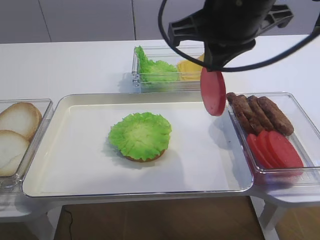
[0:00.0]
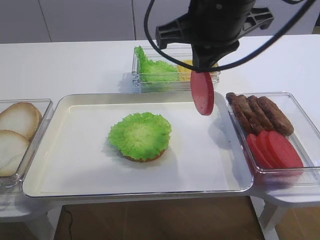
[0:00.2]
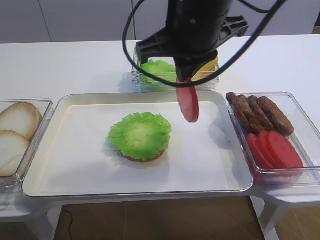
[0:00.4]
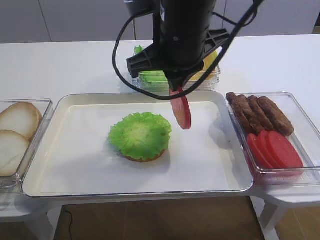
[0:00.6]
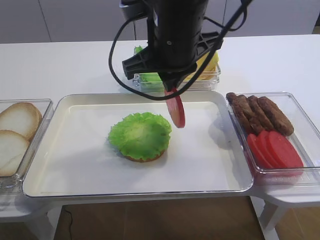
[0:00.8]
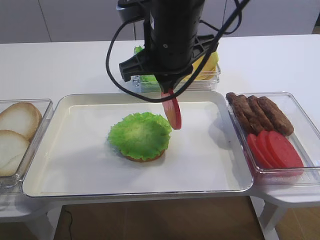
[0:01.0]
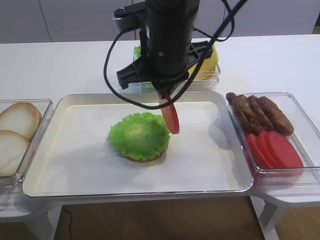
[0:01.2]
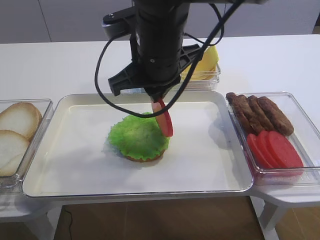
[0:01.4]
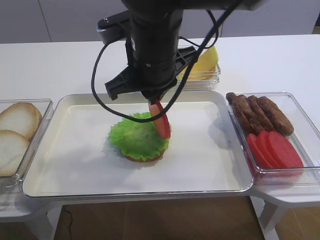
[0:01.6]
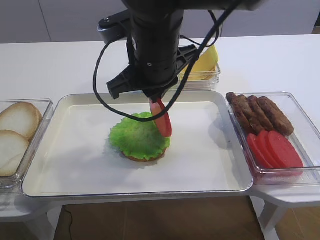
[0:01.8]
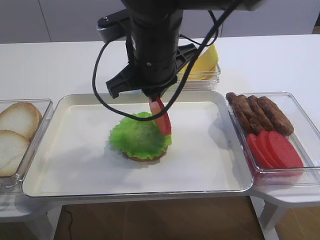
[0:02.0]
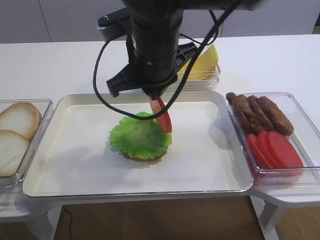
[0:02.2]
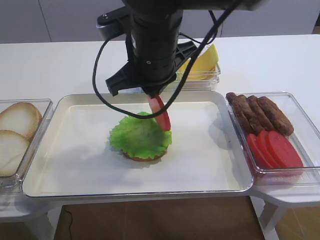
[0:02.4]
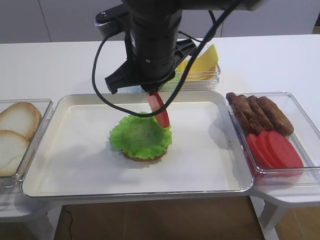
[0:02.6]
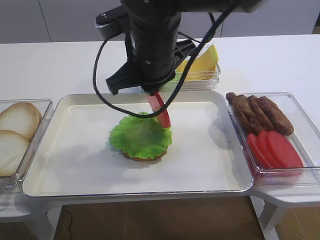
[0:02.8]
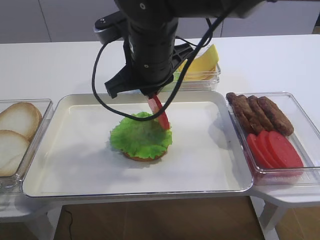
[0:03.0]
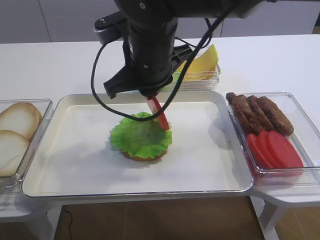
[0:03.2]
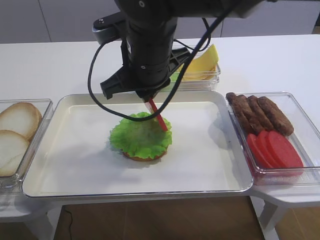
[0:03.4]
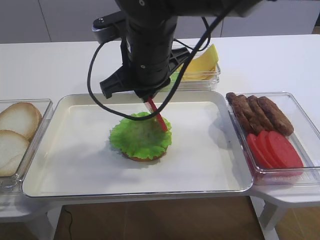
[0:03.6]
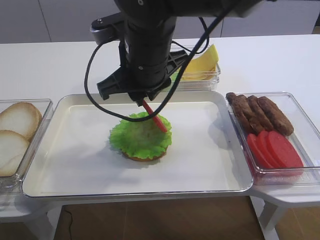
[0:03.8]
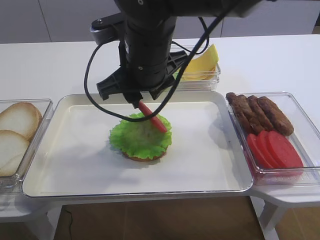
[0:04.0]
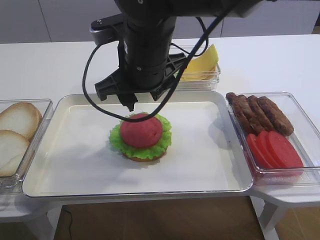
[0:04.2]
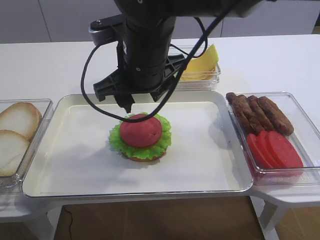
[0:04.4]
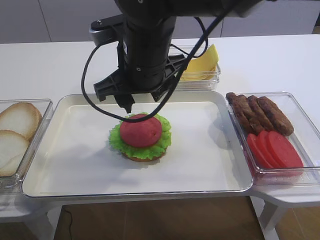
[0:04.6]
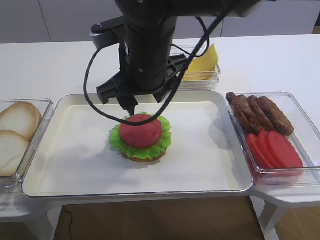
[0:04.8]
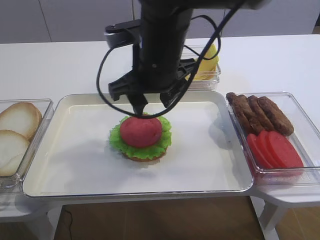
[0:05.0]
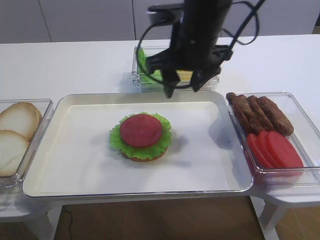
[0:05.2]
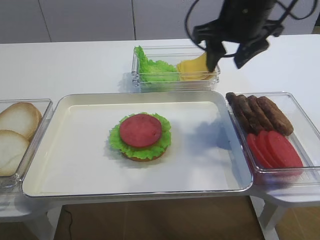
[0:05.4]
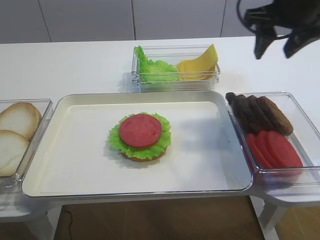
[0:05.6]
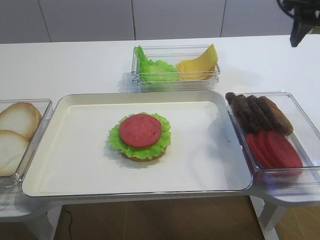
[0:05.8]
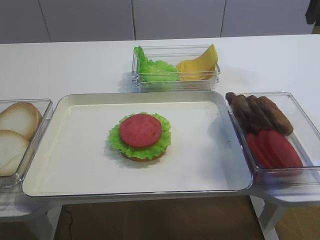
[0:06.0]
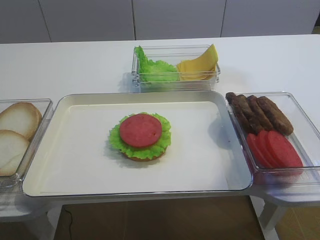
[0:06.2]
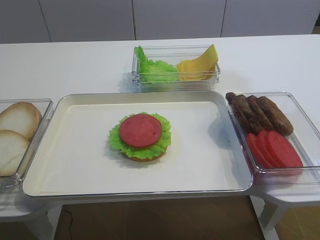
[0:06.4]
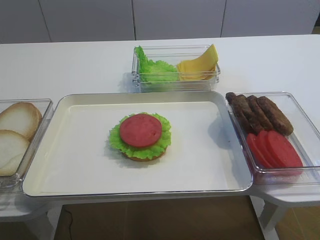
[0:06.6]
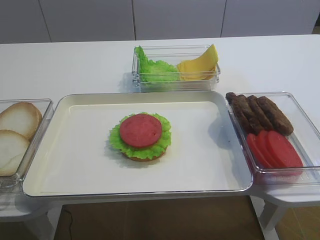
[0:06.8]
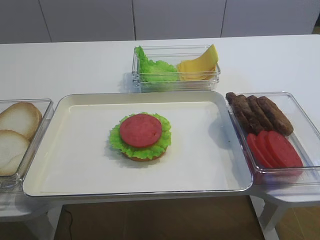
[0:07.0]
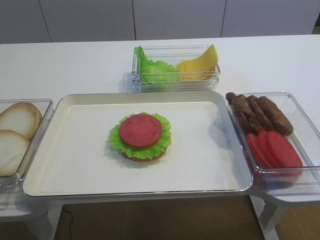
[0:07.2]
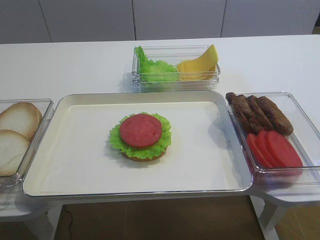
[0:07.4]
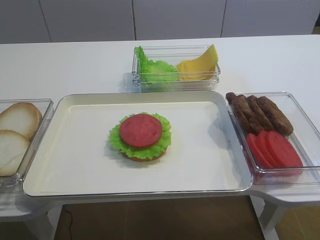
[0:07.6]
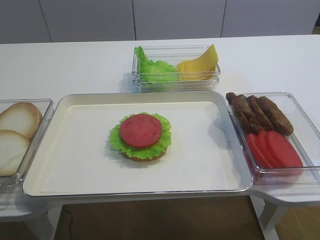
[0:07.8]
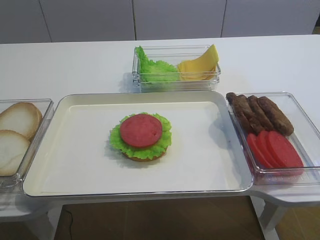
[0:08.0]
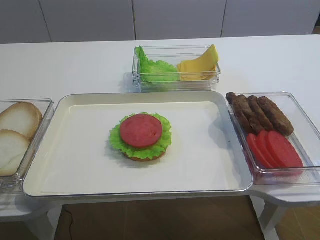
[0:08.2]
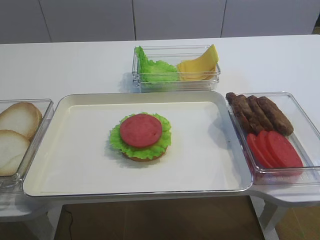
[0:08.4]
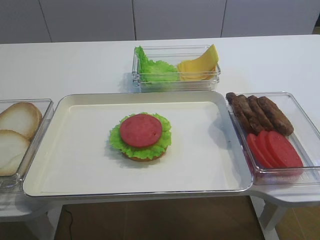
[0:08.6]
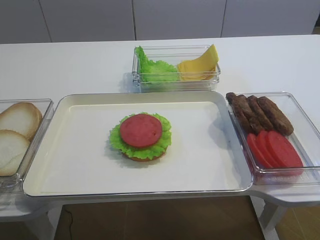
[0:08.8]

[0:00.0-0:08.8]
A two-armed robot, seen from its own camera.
Step, 0:00.0 to 0:04.4: Place the tomato slice on the lettuce leaf with the right gripper.
0:00.0 to 0:01.4: The right gripper moves to the left and downward, approximately 10 cm.
0:01.4 to 0:03.0: The grippers stay close to where they were, moving slightly.
0:03.0 to 0:04.4: The right gripper opens.
0:04.4 to 0:05.8: The right gripper is displaced to the right by roughly 25 cm.
0:05.8 to 0:07.4: The right gripper heads backward, covering approximately 35 cm.

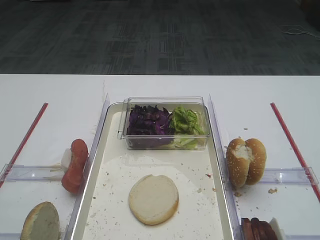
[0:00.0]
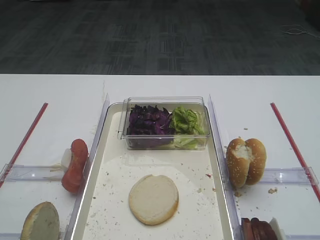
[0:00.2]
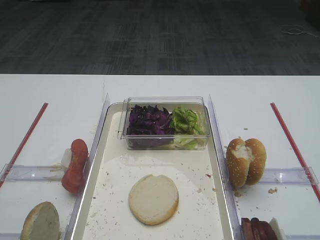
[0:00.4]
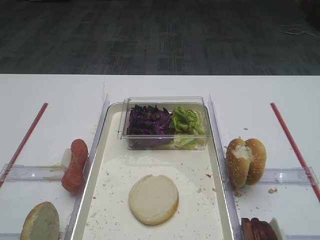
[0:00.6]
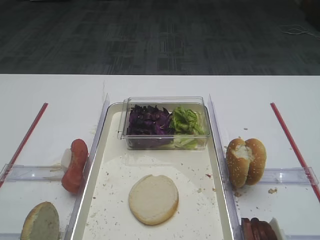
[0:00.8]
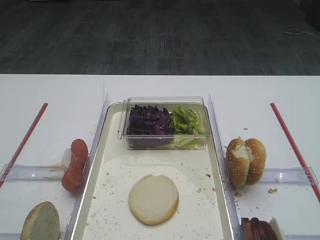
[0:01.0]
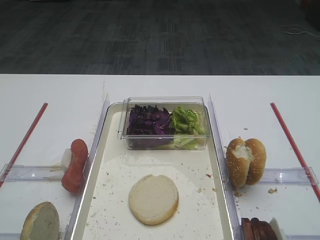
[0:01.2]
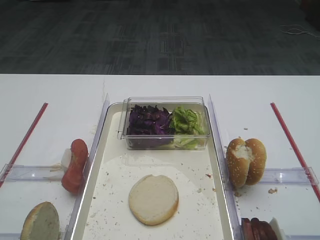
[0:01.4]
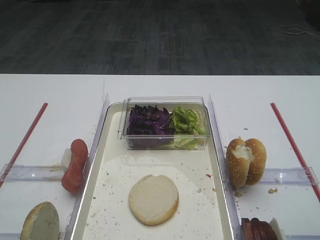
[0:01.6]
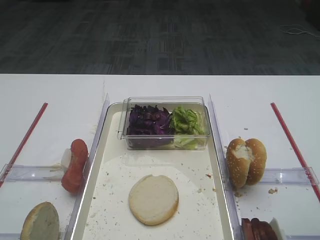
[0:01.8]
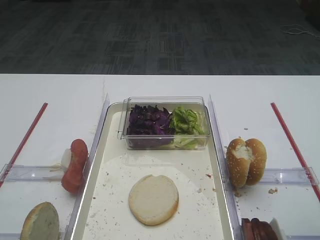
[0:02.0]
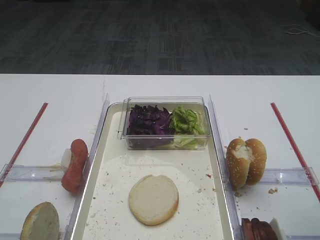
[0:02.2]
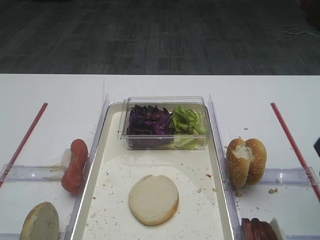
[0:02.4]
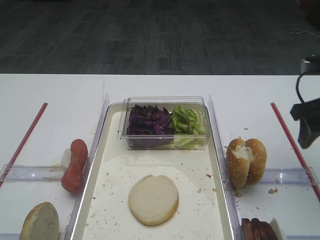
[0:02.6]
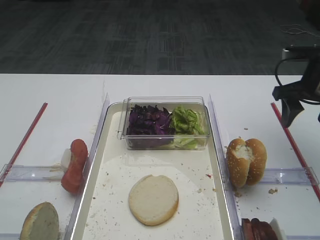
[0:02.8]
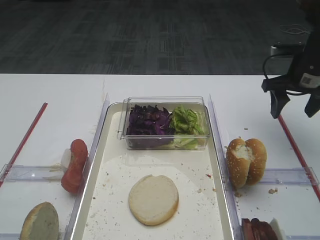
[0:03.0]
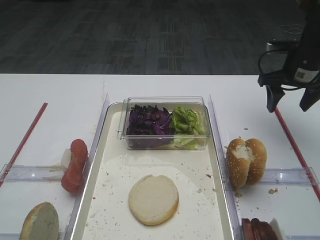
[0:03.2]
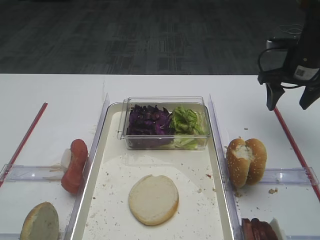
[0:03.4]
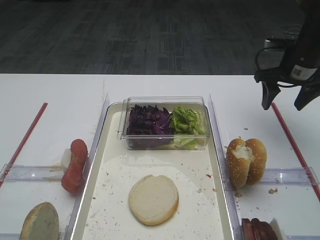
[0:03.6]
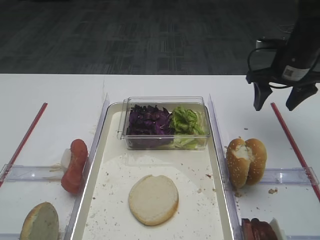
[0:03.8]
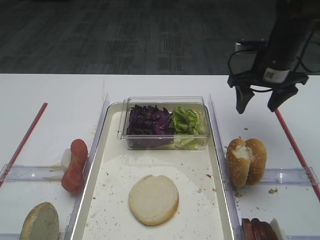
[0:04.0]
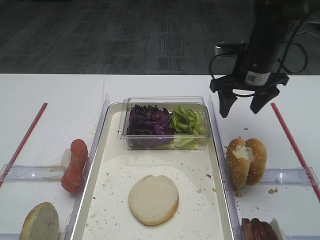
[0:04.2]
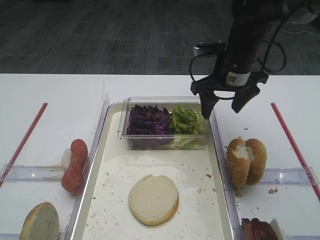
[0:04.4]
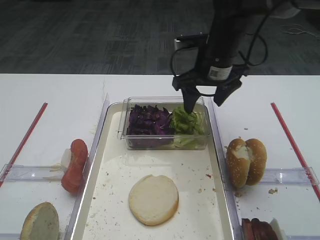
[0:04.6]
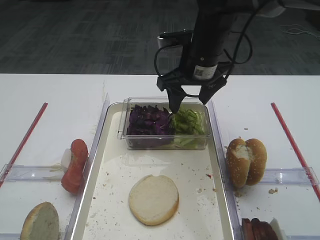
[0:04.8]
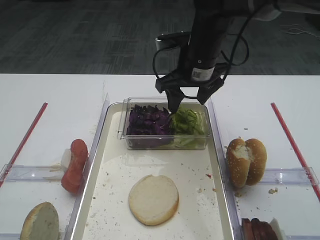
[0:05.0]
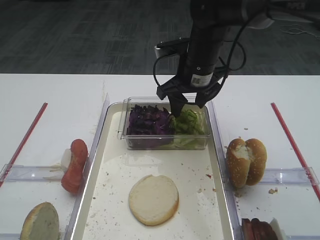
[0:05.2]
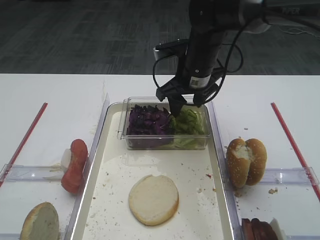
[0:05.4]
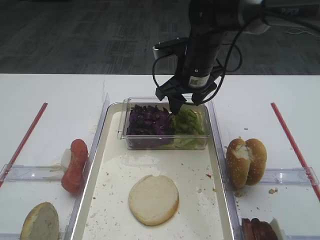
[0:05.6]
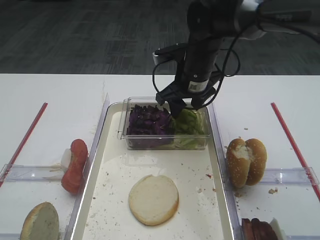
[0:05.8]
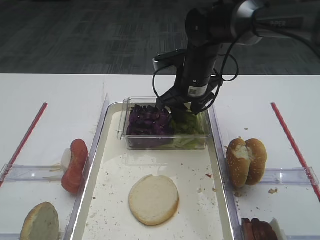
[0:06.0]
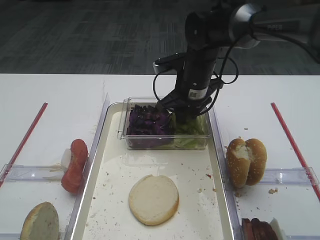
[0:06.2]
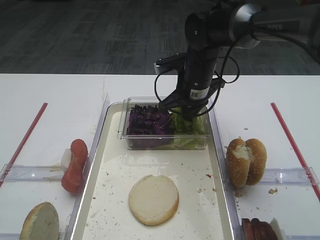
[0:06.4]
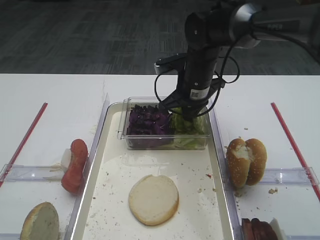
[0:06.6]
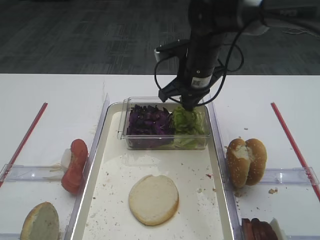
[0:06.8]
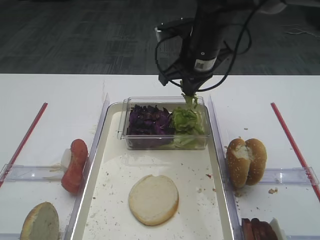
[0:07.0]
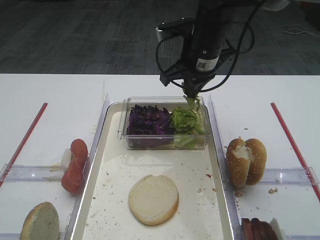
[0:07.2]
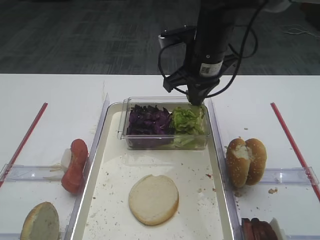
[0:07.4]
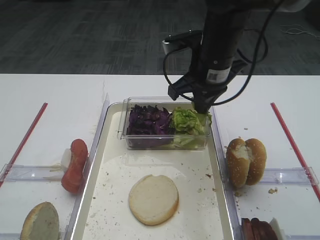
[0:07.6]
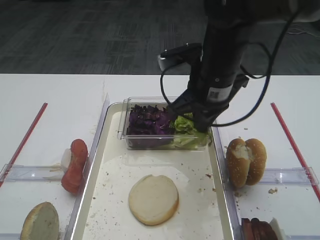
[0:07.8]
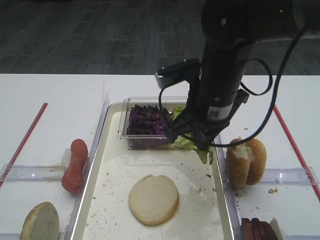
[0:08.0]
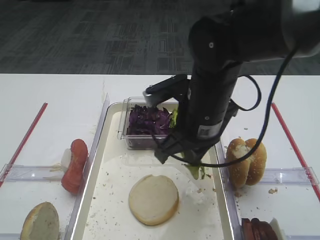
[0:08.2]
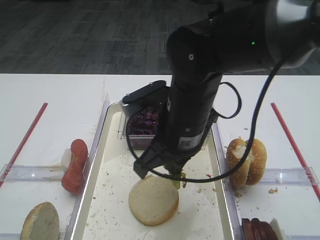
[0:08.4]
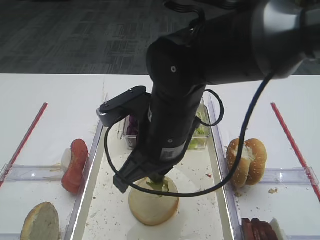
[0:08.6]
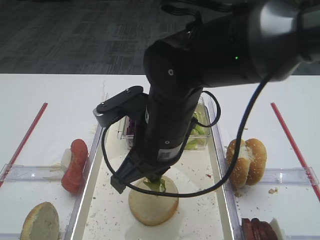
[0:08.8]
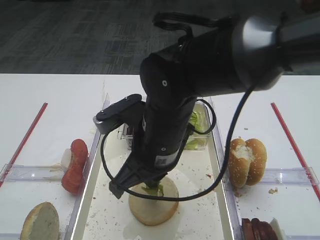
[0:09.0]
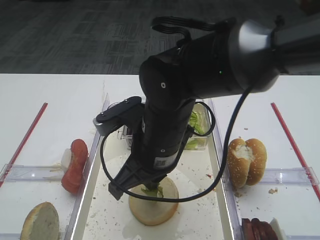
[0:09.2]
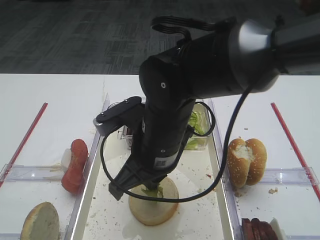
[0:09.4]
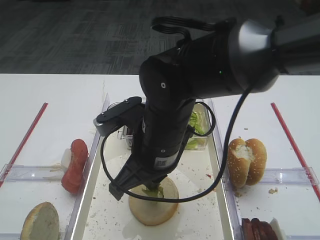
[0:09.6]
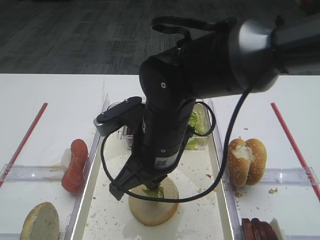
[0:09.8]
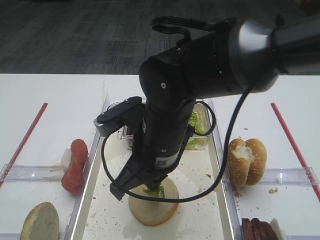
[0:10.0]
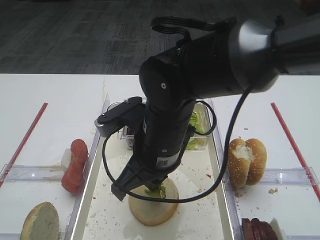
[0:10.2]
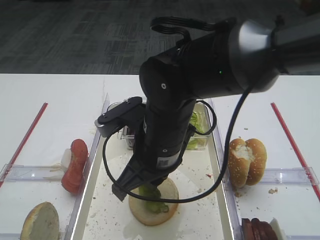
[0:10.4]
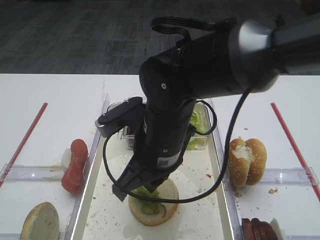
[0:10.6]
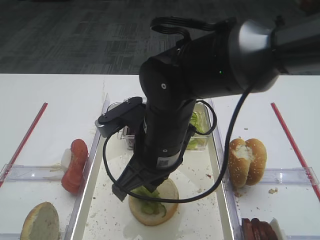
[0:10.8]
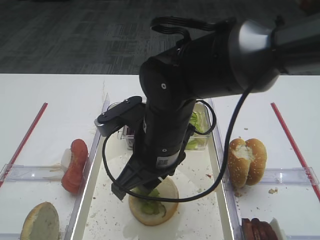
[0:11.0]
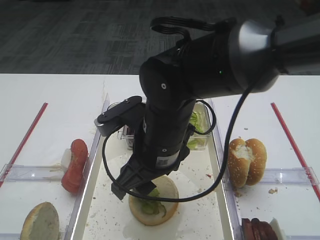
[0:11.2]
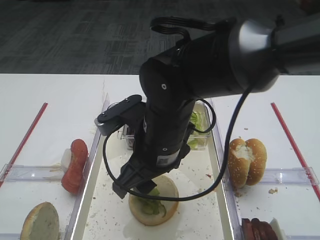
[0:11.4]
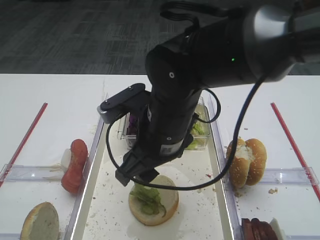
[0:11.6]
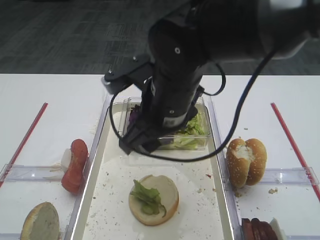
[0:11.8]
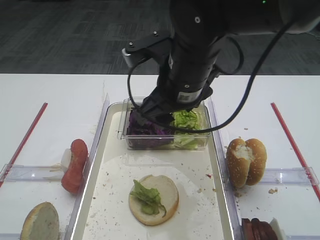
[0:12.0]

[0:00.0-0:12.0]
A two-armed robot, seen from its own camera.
Step, 0:00.0 to 0:07.2: Pick up the lettuce leaf with the right gripper.
Step, 0:07.4 to 0:11.6: Place the lettuce leaf on the bread slice with the right gripper.
0:01.6 to 0:03.0: The right gripper goes roughly 30 cm forward.
0:03.0 to 0:04.4: The right gripper heads to the left, covering approximately 15 cm.
0:04.4 to 0:06.0: The right gripper goes approximately 10 cm to the left.
0:06.0 to 0:07.6: The right gripper travels upward by roughly 5 cm, and closes.
0:07.6 to 0:09.0: The right gripper travels backward and to the left by approximately 15 cm.
0:09.0 to 0:10.4: The two grippers keep their place.
0:10.4 to 0:12.0: The right gripper shifts roughly 10 cm upward and forward, and opens its fingers.

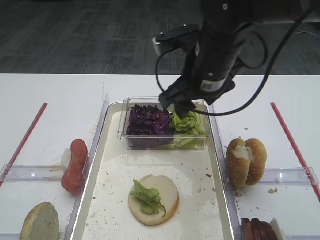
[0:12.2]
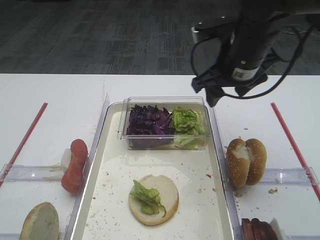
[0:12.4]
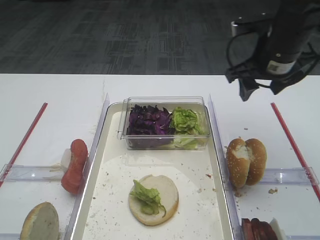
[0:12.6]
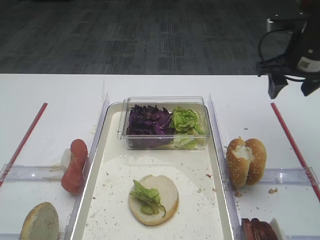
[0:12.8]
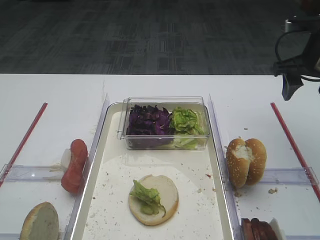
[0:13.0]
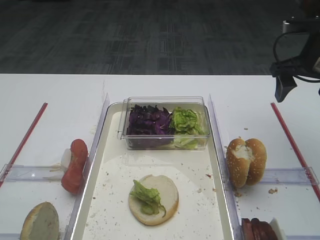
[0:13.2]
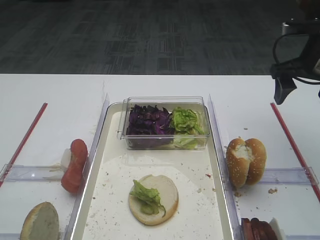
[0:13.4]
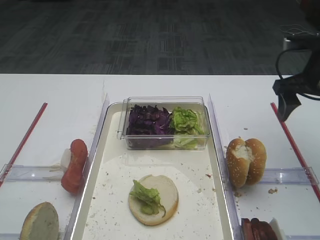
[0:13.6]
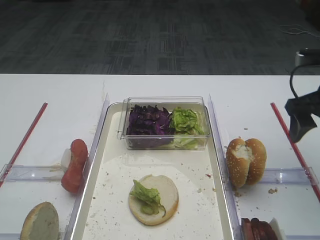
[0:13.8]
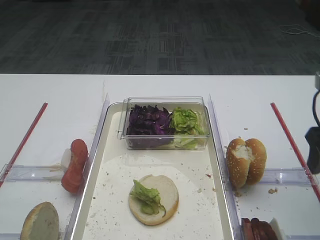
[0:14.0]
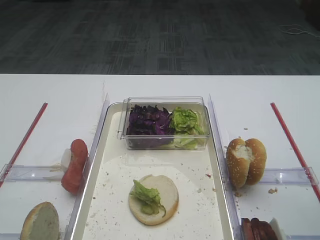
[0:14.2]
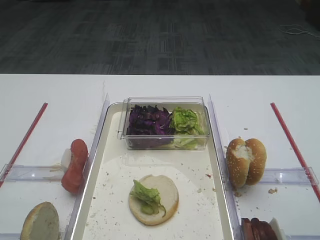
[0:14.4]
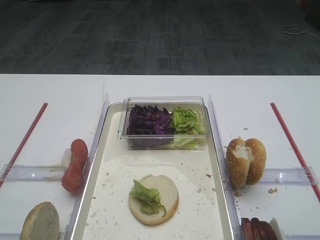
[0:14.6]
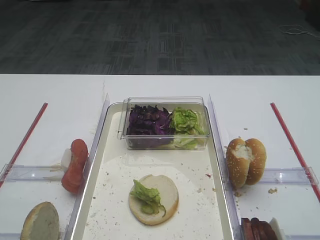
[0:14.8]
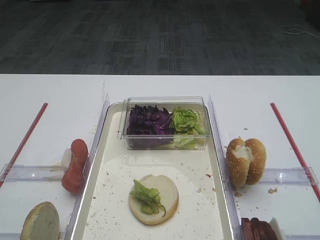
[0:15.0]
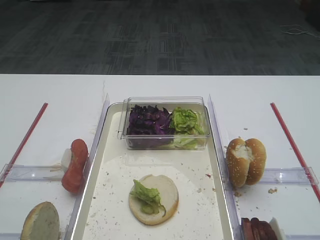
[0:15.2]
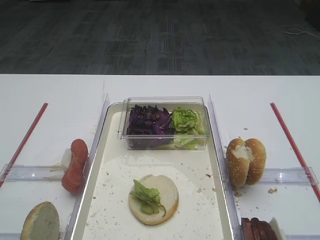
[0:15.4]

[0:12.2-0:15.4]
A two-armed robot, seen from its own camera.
0:12.2 to 0:13.8: The right gripper heads to the right, covering roughly 20 cm.
0:13.8 to 0:15.4: The right gripper goes approximately 30 cm backward.
